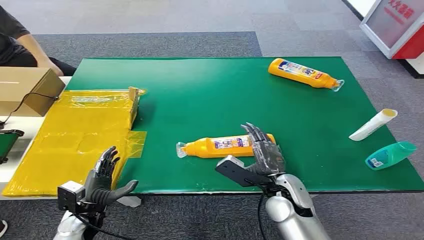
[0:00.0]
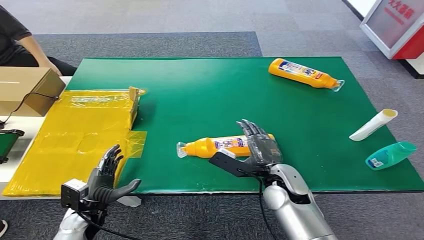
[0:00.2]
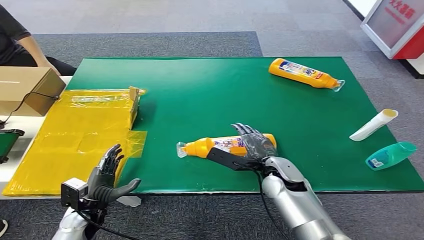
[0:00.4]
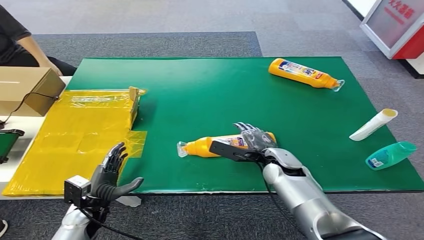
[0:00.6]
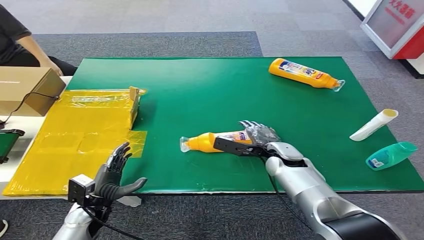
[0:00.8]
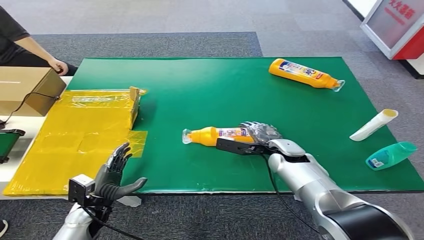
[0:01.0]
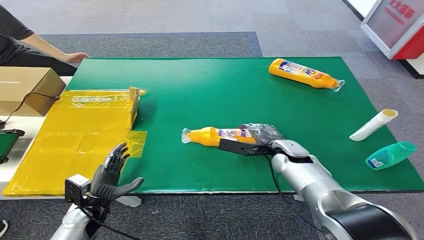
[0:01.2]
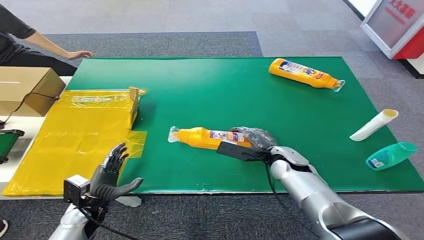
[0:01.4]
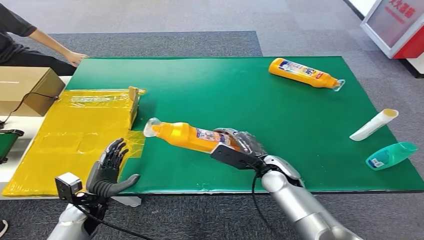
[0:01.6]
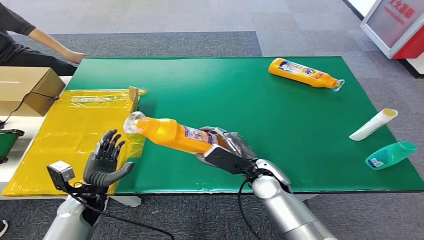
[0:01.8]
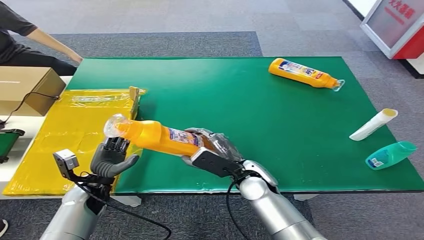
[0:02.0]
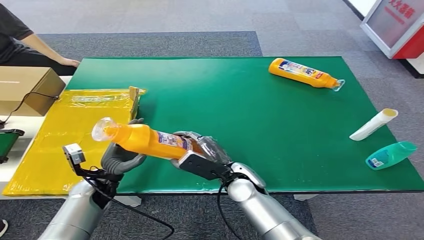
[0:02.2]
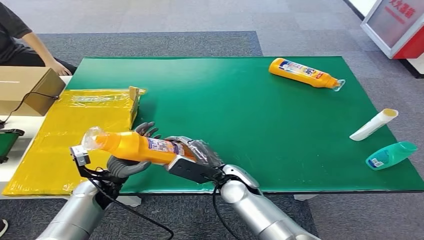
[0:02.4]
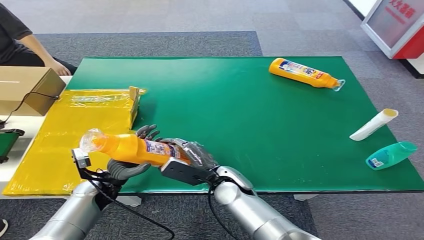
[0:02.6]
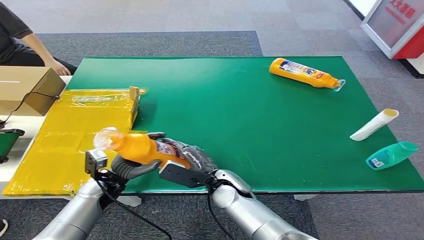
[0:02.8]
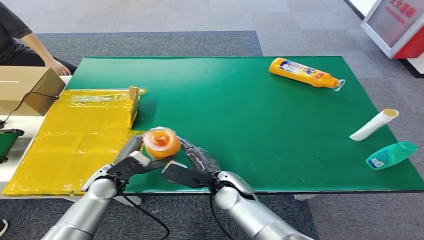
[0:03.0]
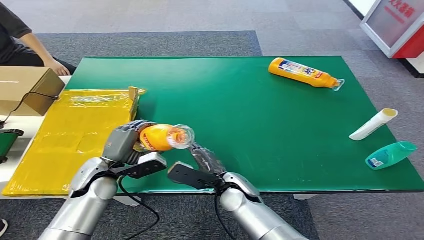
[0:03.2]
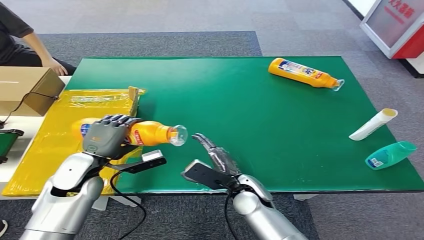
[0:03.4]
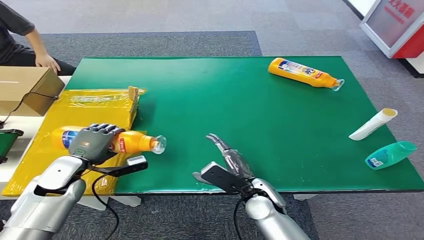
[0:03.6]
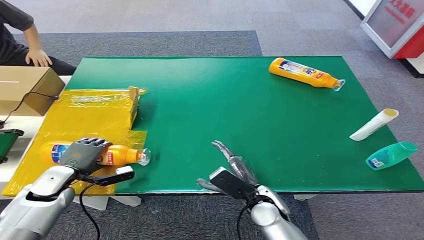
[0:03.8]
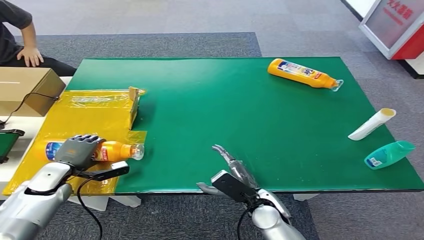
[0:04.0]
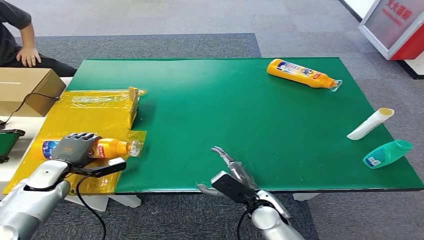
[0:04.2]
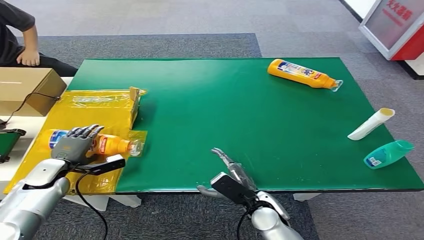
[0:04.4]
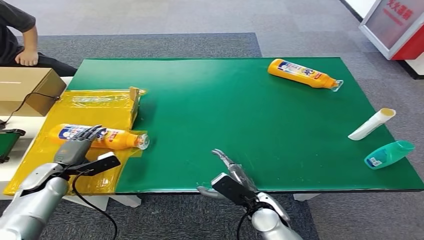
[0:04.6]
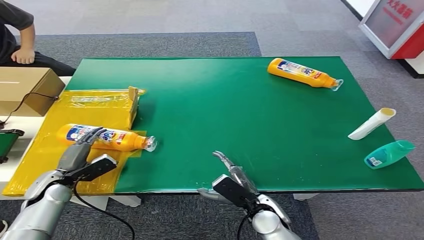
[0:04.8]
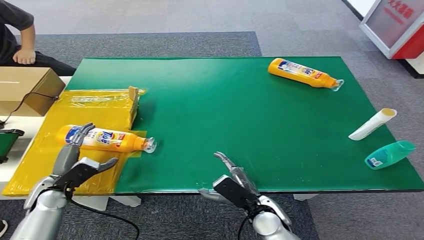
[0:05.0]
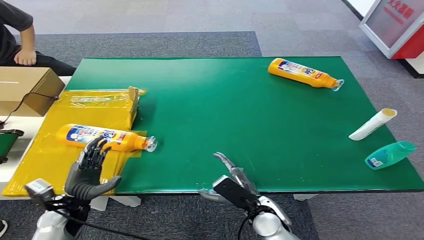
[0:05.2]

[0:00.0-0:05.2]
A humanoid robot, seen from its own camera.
Step, 0:00.0 to 0:01.6: Pick up the bottle from the table.
Step, 0:01.8 to 0:05.2: Turn the bottle to the front side.
0:01.8 to 0:03.4: The right hand shifts by roughly 5 cm, while the left hand is displaced upward by some 10 cm.
0:03.4 to 0:05.2: The right hand shifts about 5 cm backward, while the left hand travels downward, backward and to the left by roughly 15 cm.
